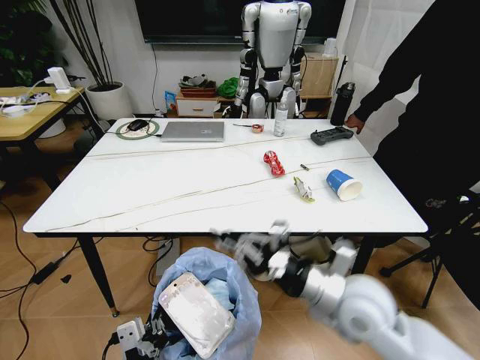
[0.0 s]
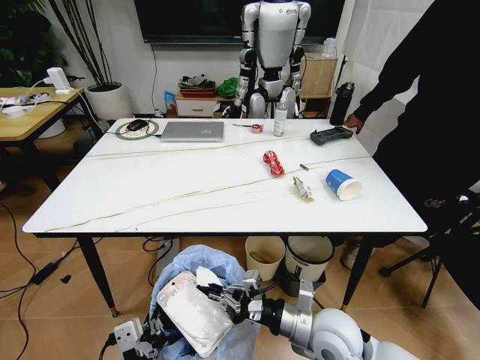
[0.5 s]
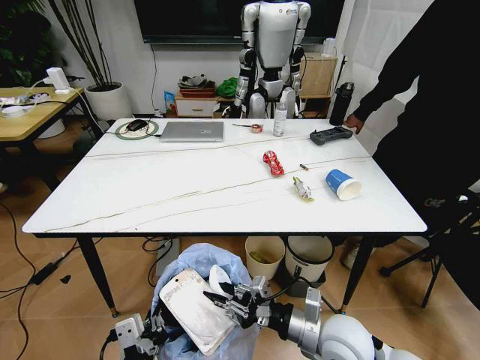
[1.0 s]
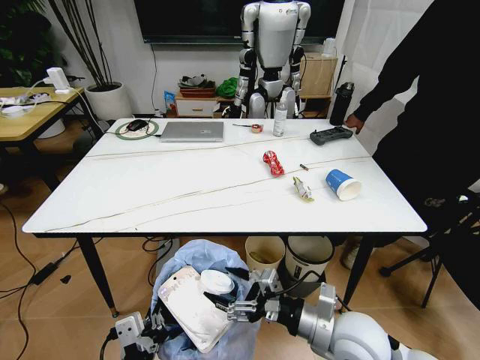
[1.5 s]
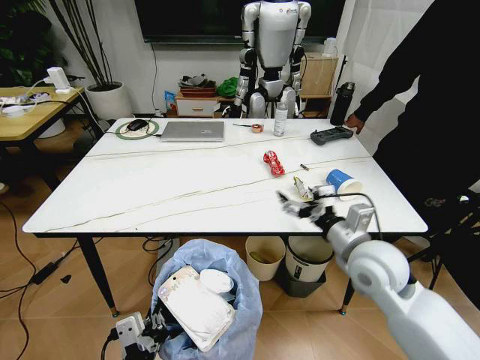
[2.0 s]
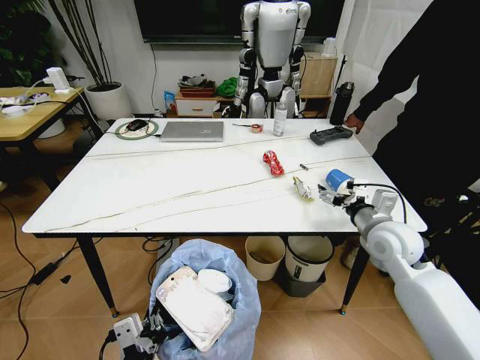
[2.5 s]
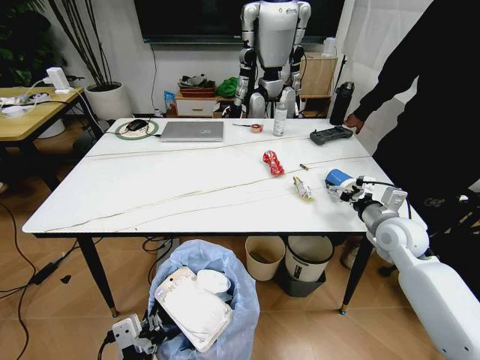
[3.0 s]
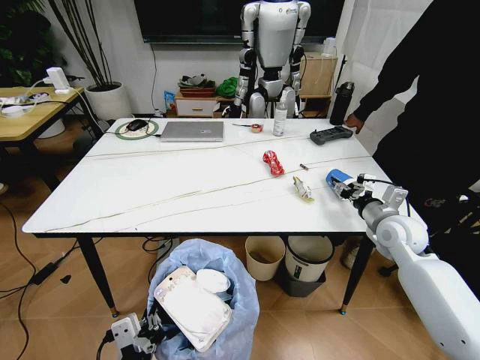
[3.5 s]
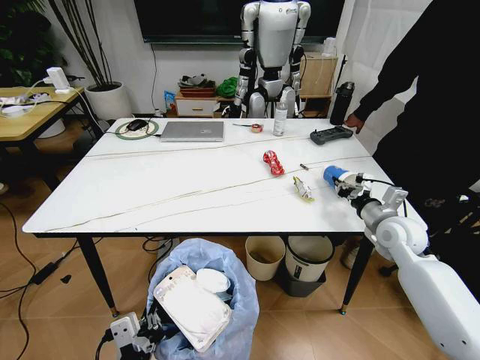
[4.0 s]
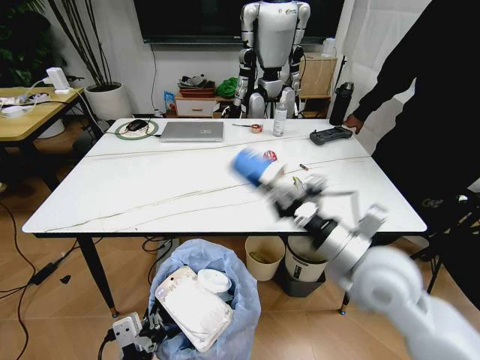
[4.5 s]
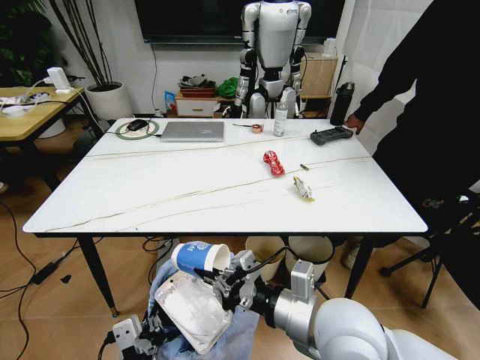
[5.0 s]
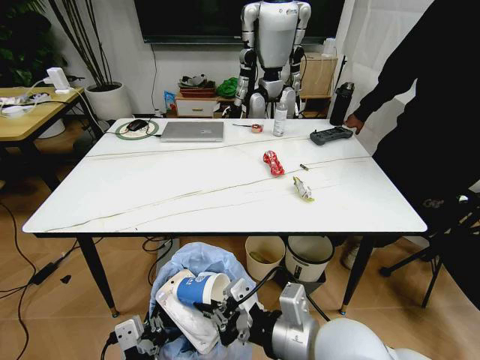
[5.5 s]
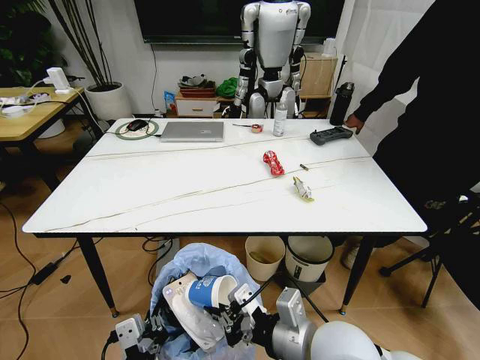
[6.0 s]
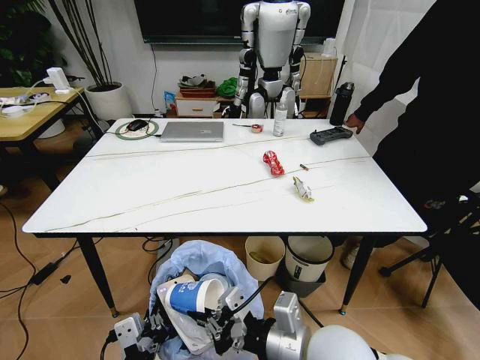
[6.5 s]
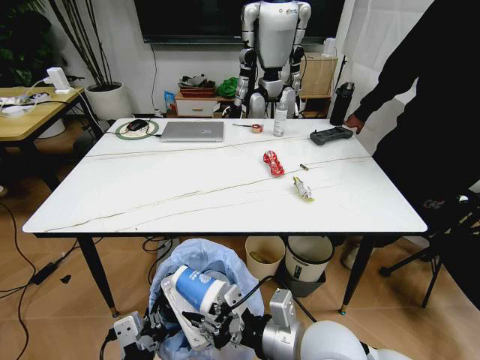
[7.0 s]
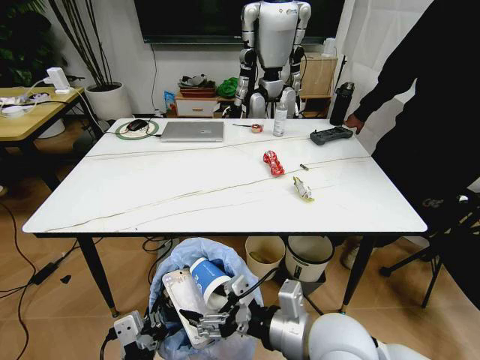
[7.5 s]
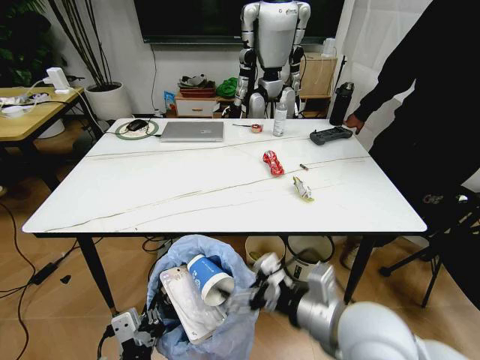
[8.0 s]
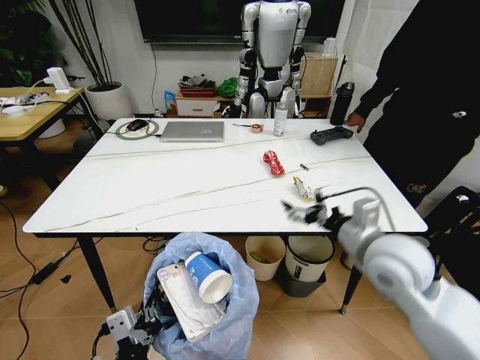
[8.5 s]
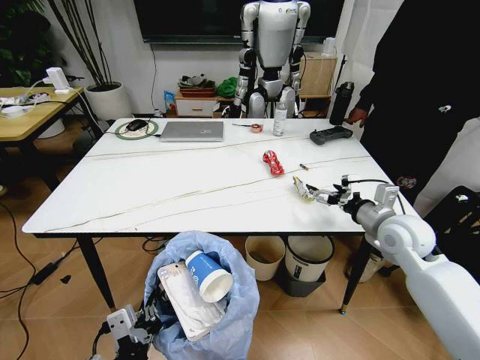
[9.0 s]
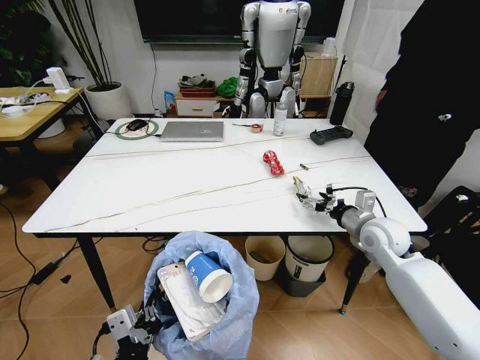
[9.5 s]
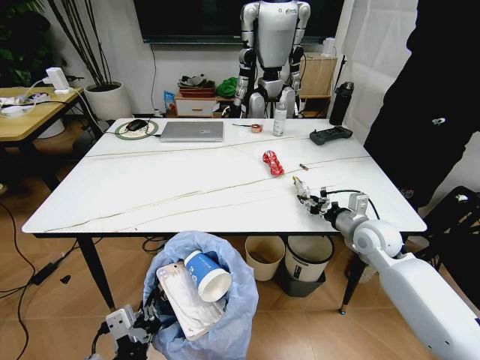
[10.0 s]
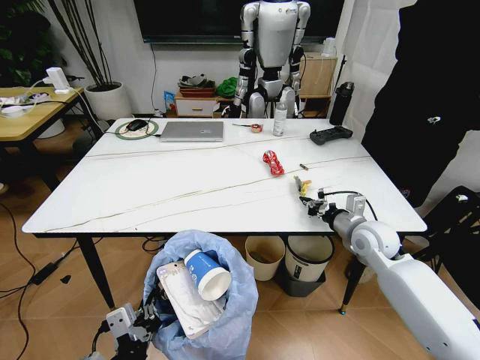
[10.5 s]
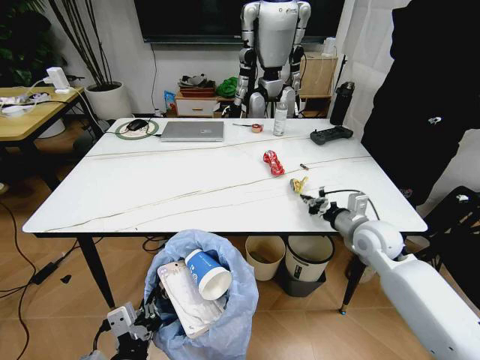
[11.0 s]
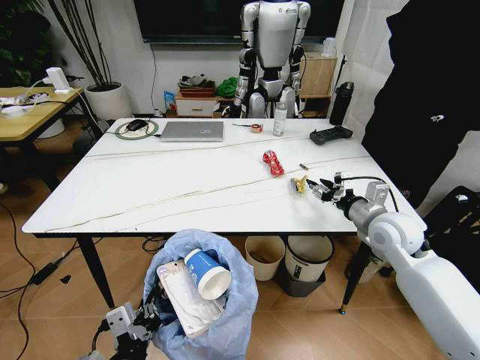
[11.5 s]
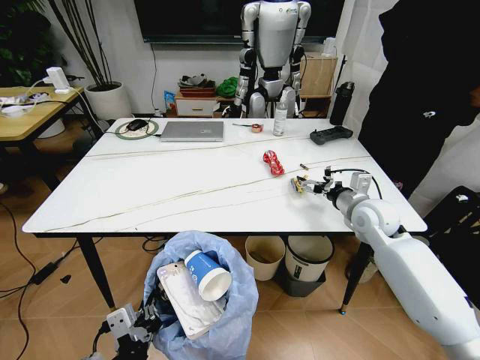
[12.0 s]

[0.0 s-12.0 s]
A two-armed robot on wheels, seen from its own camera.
Task of the whole recording: Pick up the trash bin and place the trash from the table into it.
0.0 to 2.0 s: The right gripper goes some 5 cm forward, travels downward and back again, approximately 10 cm each way, and opens.
2.0 to 4.0 s: The right gripper goes roughly 15 cm to the right and forward, and closes its fingers.
4.0 to 6.0 s: The right gripper is displaced backward and to the left by approximately 35 cm.
6.0 to 8.0 s: The right gripper opens its fingers.
8.0 to 10.0 s: The right gripper shifts about 25 cm forward and to the right, and closes.
10.0 to 12.0 s: The right gripper moves approximately 5 cm, and opens up.

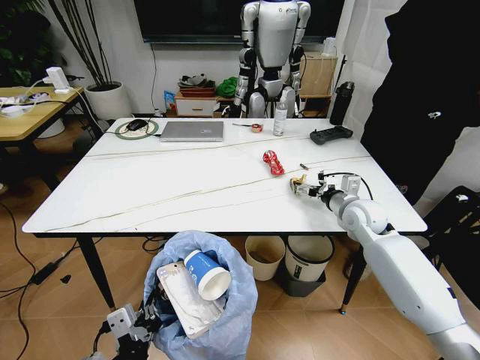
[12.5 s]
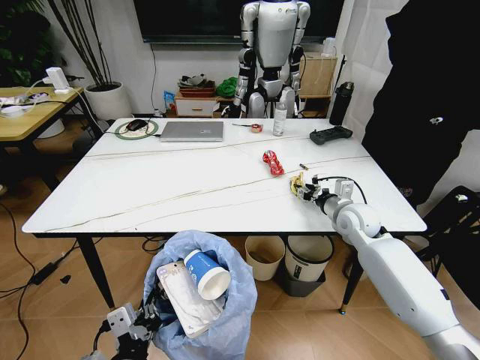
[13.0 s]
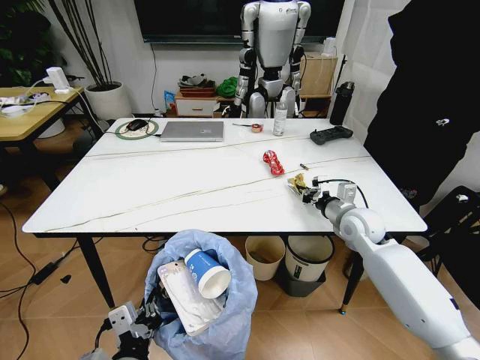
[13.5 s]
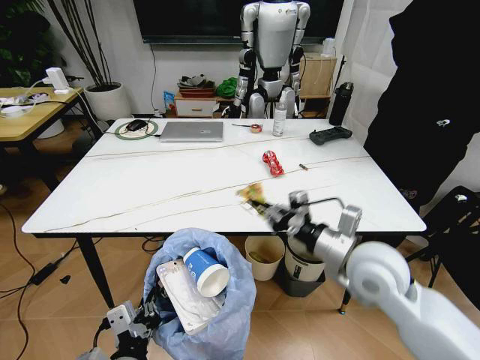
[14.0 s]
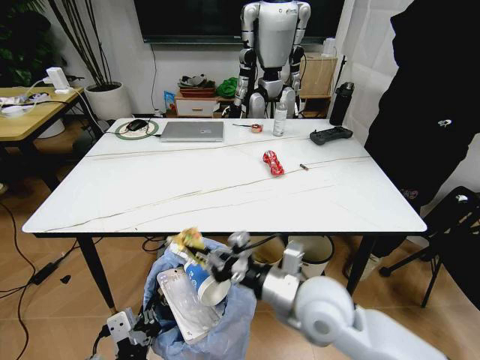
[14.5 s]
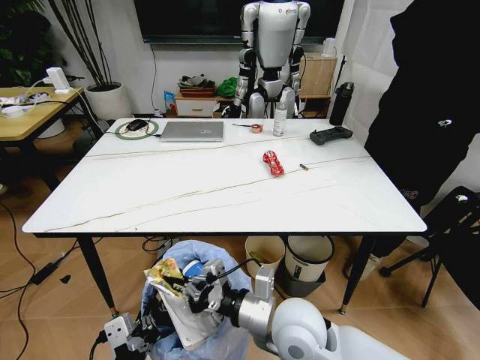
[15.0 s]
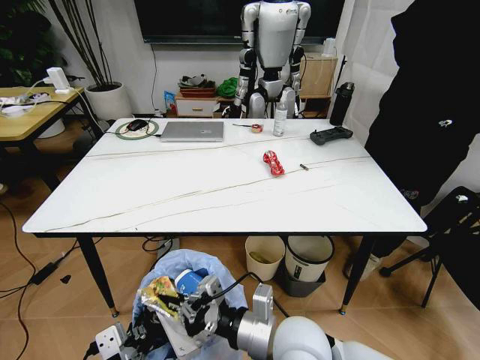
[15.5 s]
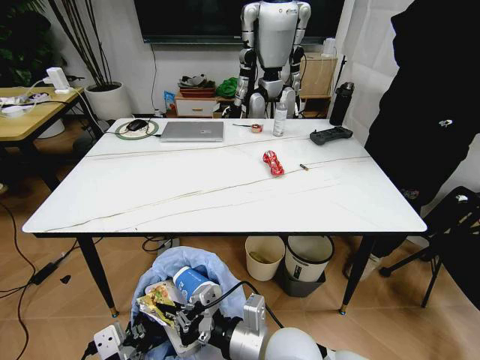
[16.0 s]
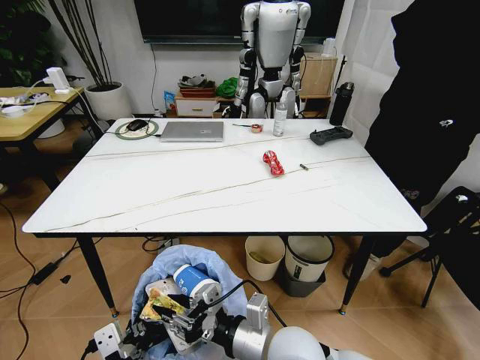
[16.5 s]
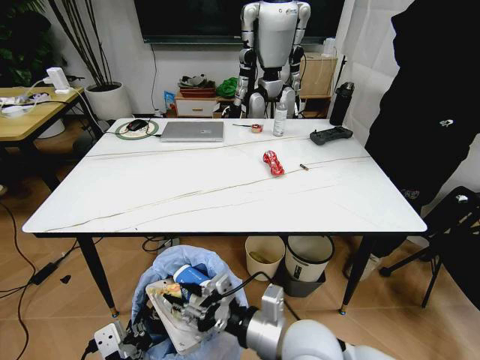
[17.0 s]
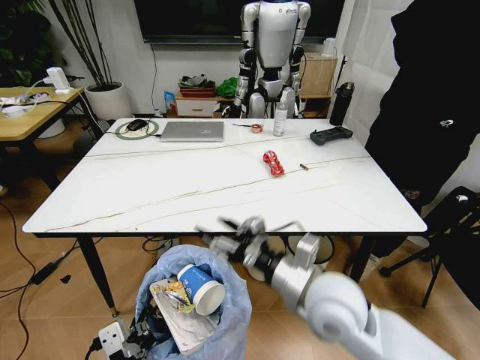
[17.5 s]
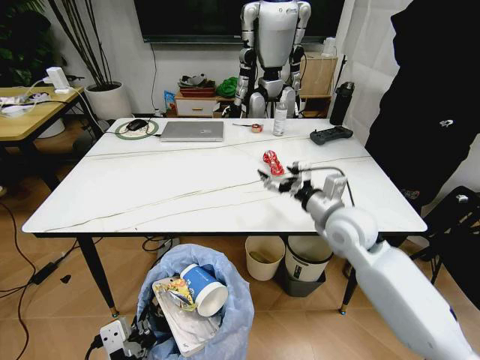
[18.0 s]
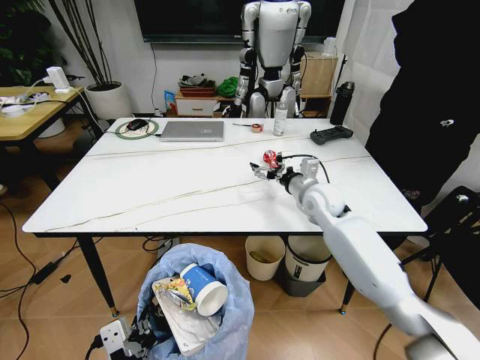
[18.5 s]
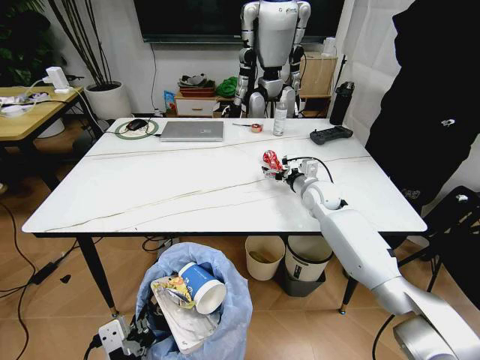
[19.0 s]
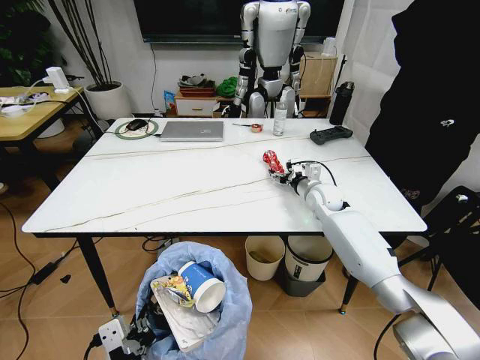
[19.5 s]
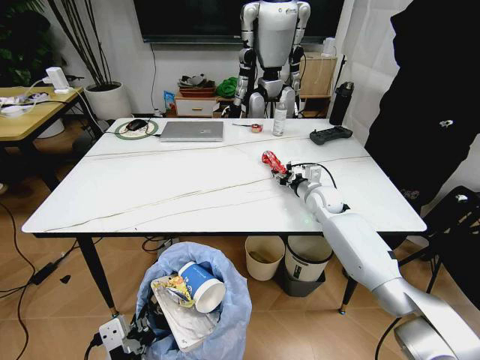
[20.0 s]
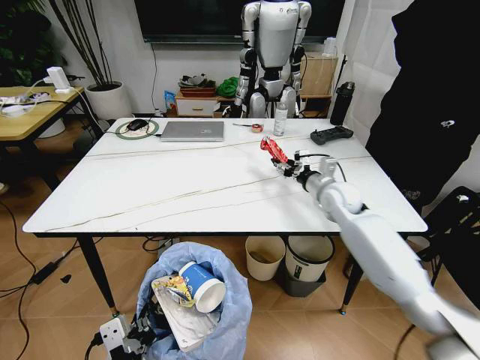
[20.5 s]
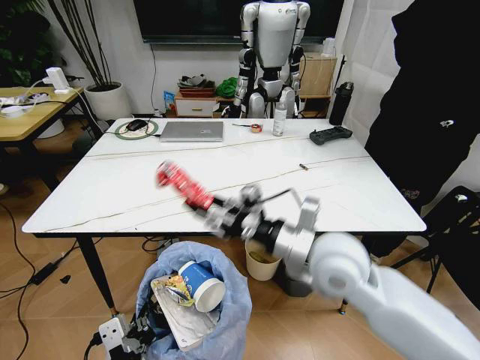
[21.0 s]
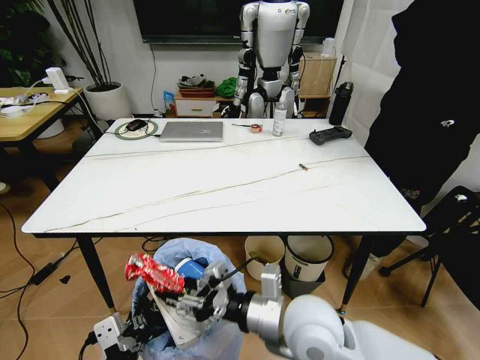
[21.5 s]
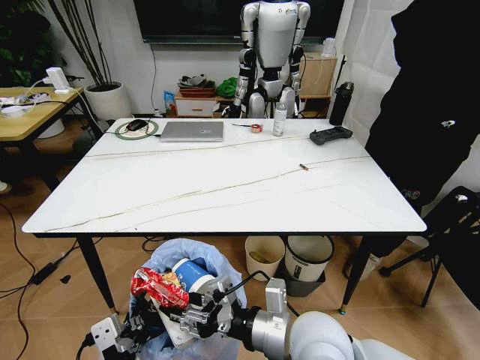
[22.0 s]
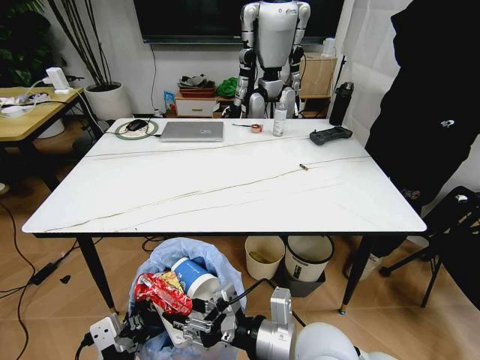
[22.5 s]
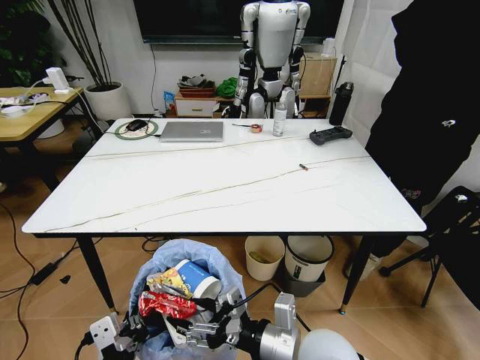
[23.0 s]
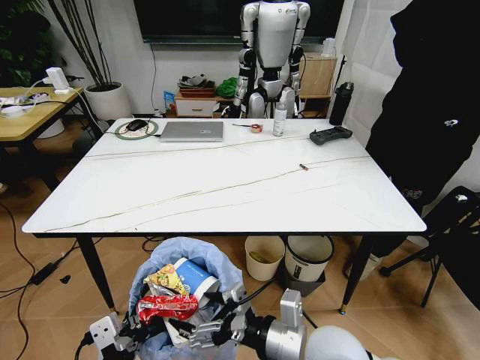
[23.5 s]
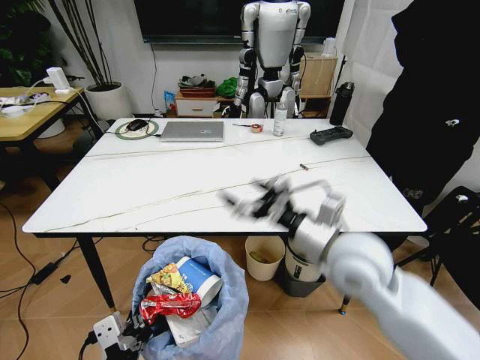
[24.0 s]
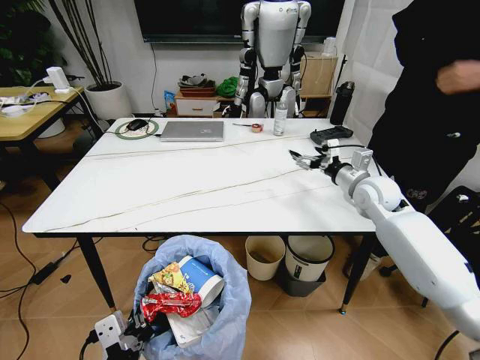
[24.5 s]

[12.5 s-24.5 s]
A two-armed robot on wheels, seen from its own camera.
Task of the whole recording: Pick up the trash bin and place the trash from the table into it.
12.5 to 14.5 s: The right gripper goes roughly 30 cm backward and to the left, and closes up.
14.5 to 16.5 s: The right gripper heads backward and to the left, covering roughly 10 cm, and opens its fingers.
16.5 to 18.5 s: The right gripper goes some 35 cm forward, and opens up.
18.5 to 20.5 s: The right gripper moves to the right, approximately 5 cm, and closes.
20.5 to 22.5 s: The right gripper is displaced backward and to the left by some 35 cm.
22.5 to 24.5 s: The right gripper shifts roughly 40 cm forward and to the right, and opens its fingers.

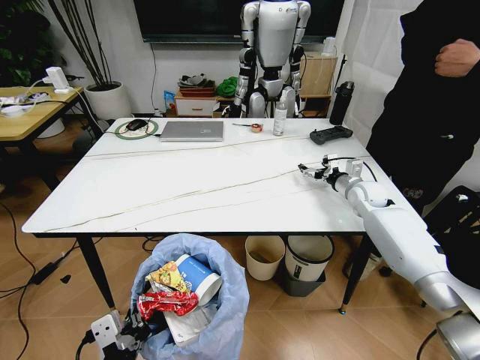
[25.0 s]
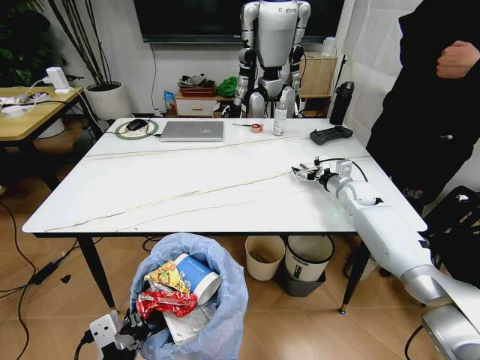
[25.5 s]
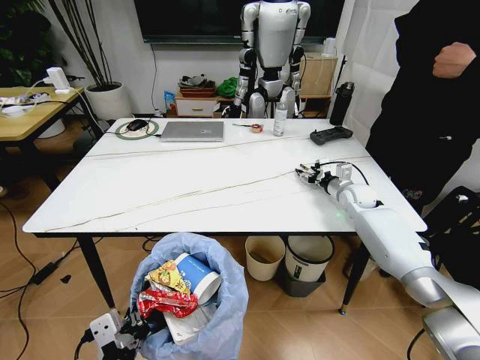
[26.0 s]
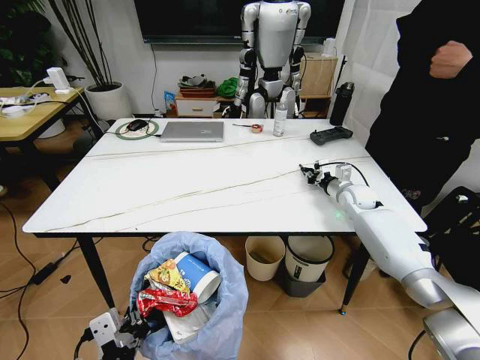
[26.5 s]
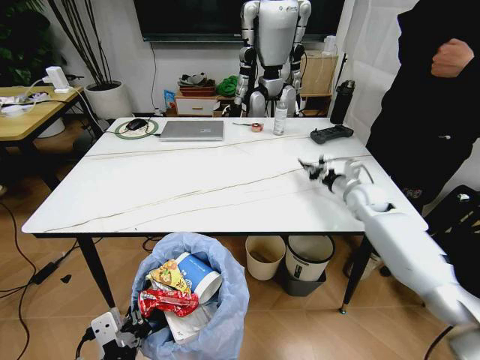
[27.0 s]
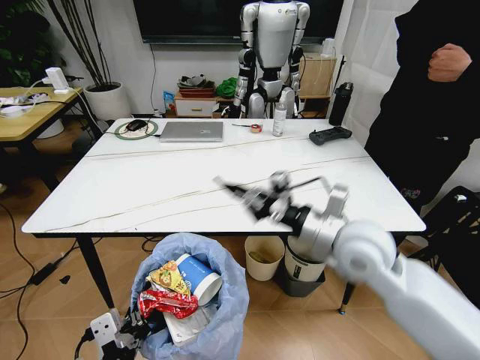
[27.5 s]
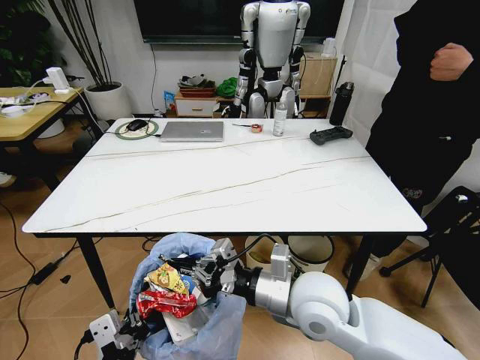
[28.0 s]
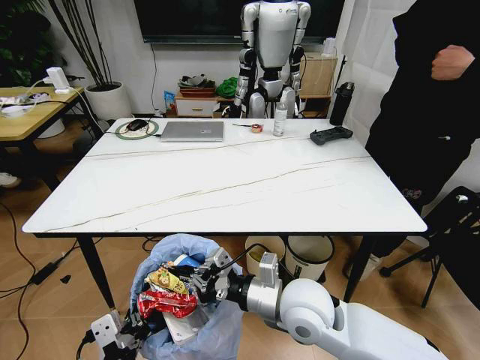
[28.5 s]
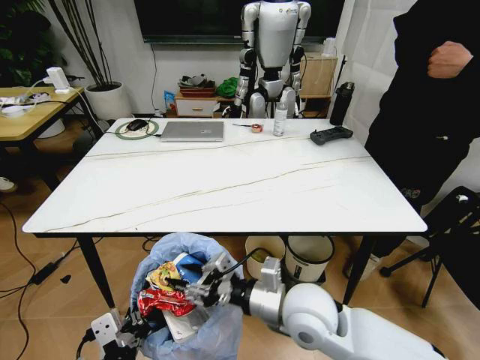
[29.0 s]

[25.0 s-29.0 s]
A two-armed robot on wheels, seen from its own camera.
Task of the whole recording: Pick up the trash bin and place the trash from the table into it.
25.0 to 27.0 s: The right gripper closes up.
27.0 to 29.0 s: The right gripper travels backward and to the left by some 40 cm, and opens up.
